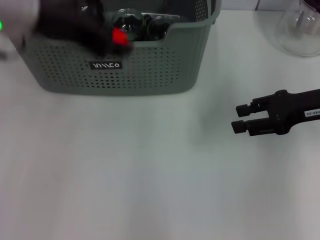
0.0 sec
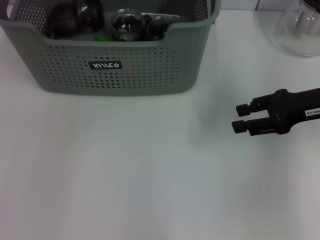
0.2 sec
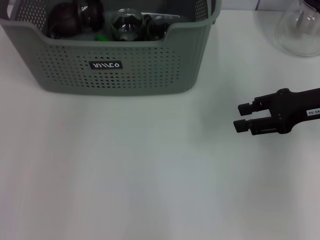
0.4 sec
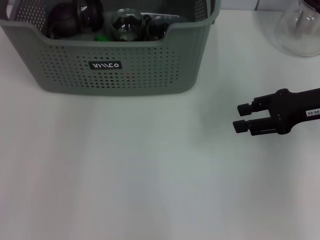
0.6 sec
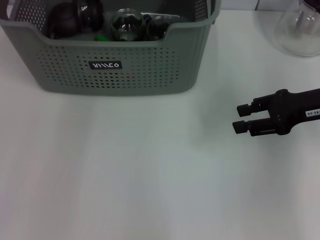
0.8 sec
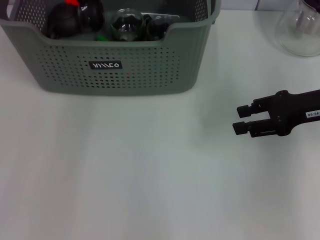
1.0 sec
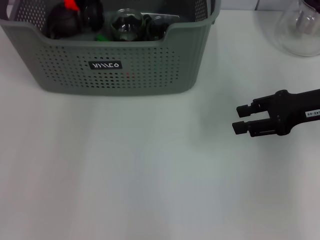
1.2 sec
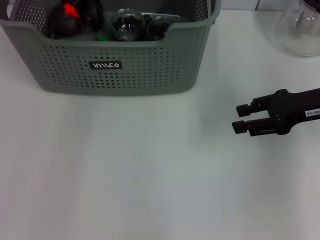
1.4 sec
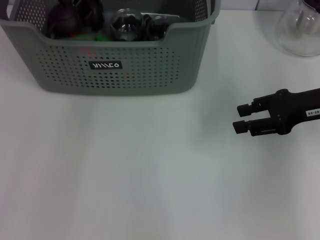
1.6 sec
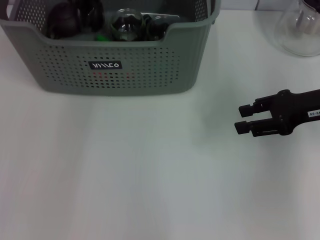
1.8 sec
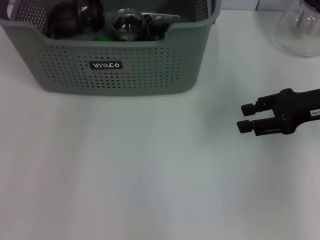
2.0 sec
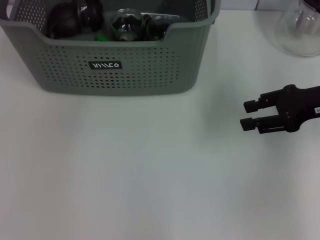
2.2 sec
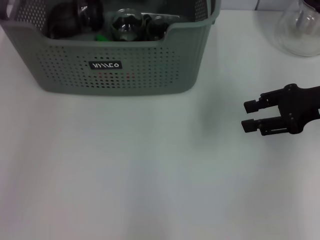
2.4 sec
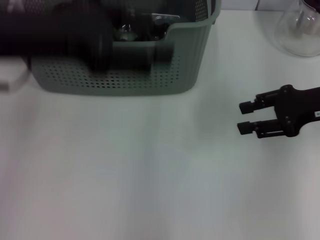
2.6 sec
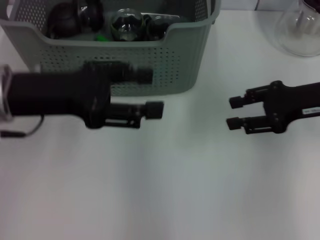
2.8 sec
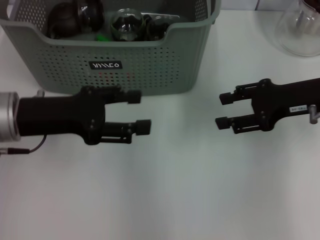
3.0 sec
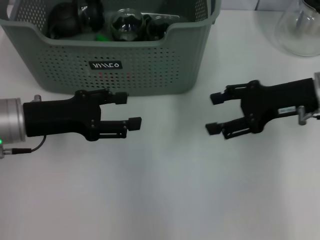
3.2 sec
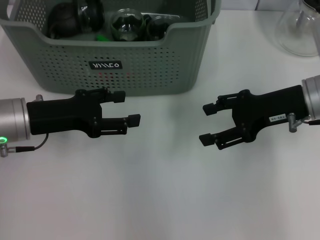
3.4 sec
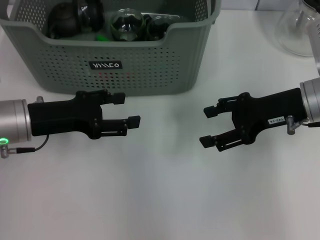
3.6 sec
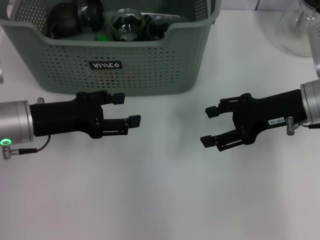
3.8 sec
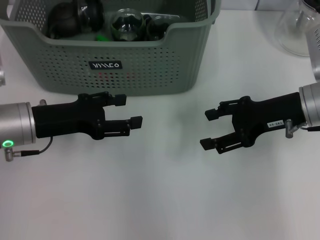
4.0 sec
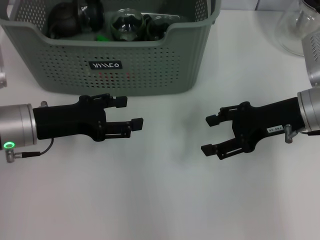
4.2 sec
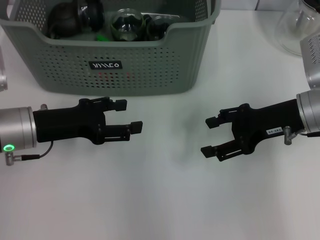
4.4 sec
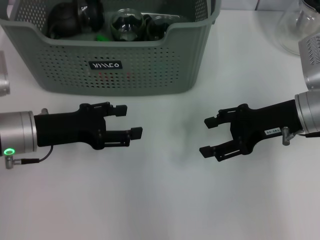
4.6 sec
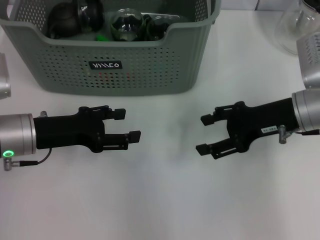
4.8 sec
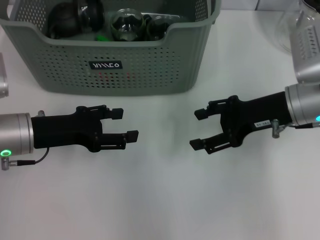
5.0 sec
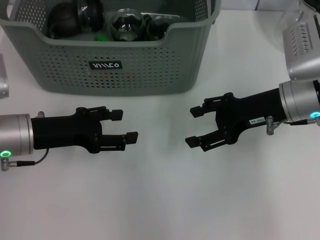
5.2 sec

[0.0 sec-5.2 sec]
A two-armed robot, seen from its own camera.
Task of the whole recording: pick up the teacup on the table and place it into the storage bin, pick up the block on the table and place it into the storage bin.
Step, 0.0 sec to 1.6 sec: Place the orange block in the storage box with left gripper.
0.0 sec to 1.8 sec: The left gripper goes some 15 cm forward.
1.8 sec to 3.4 sec: The right gripper is displaced to the left by some 5 cm; the left gripper is displaced downward and backward by roughly 25 cm.
3.4 sec to 5.2 sec: The grippers move only a little.
